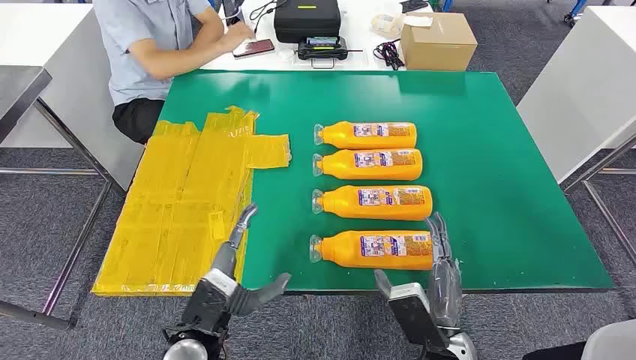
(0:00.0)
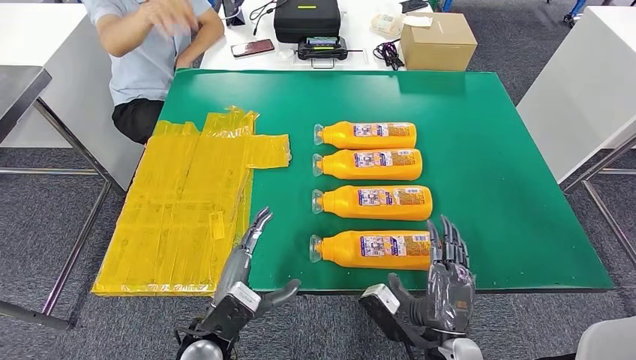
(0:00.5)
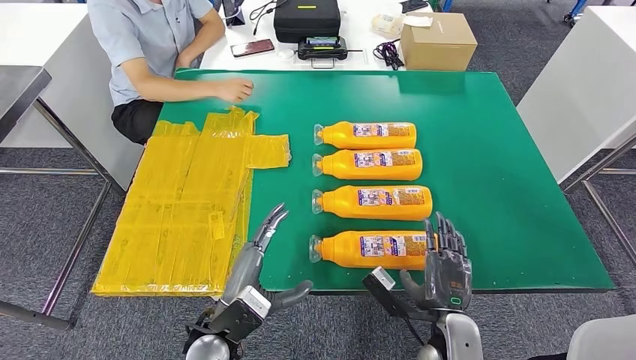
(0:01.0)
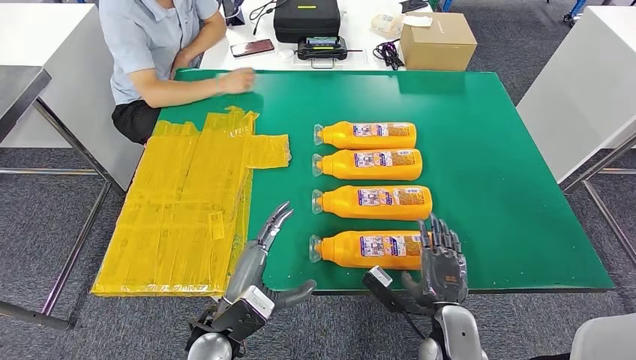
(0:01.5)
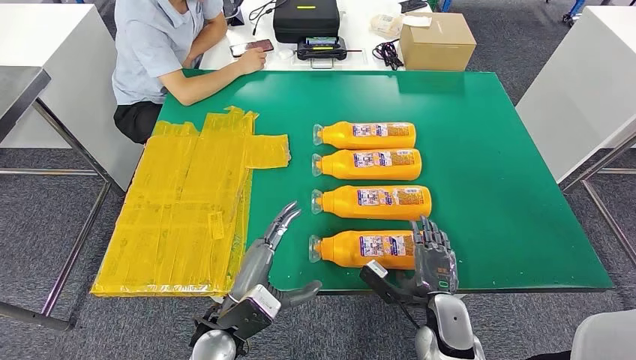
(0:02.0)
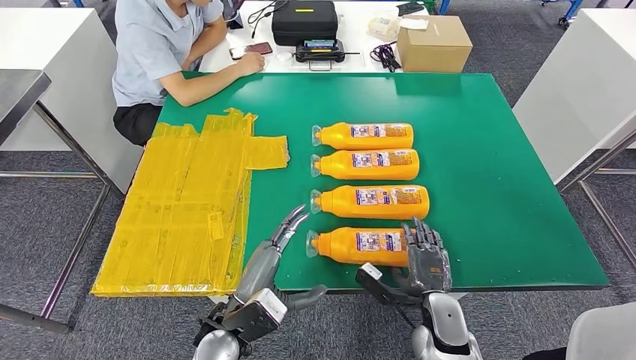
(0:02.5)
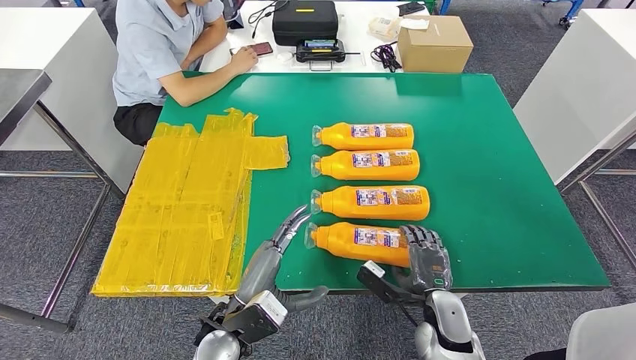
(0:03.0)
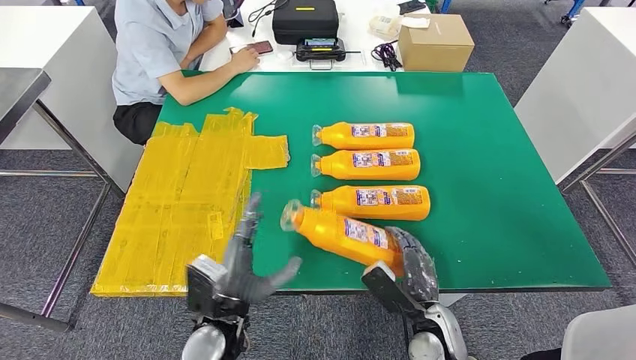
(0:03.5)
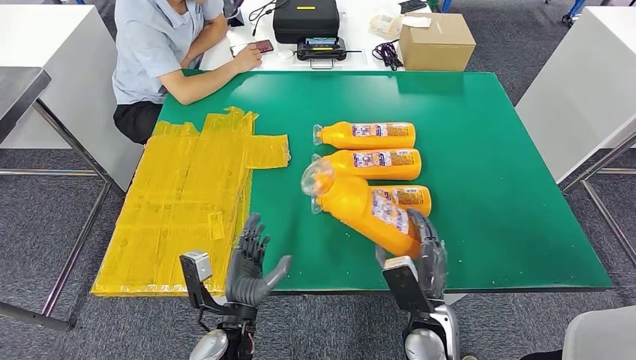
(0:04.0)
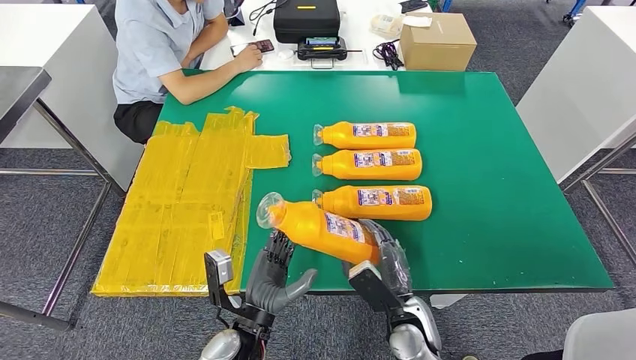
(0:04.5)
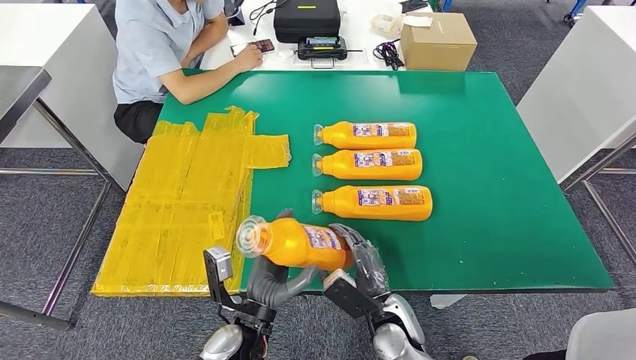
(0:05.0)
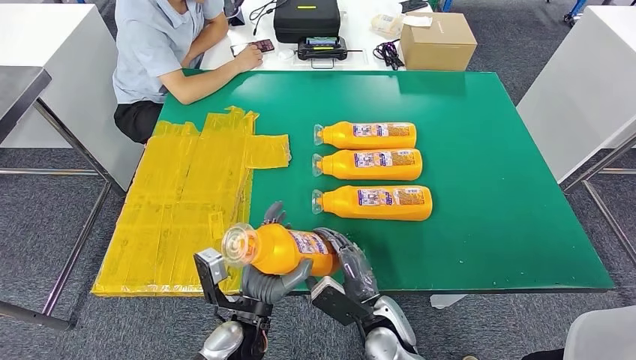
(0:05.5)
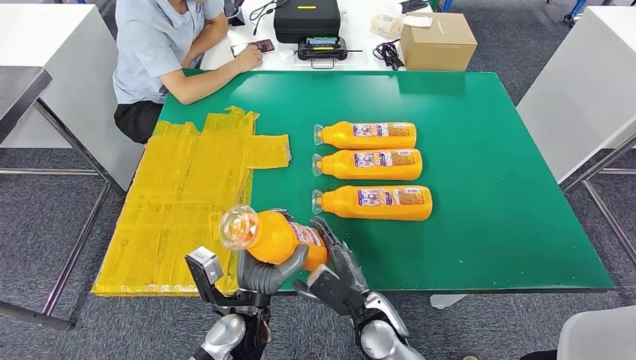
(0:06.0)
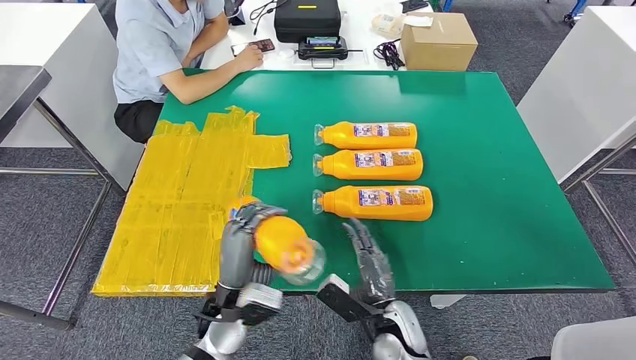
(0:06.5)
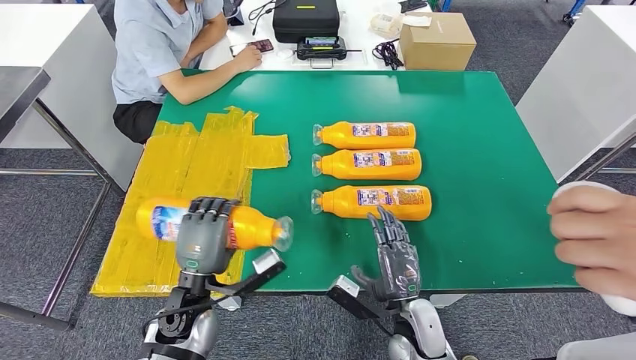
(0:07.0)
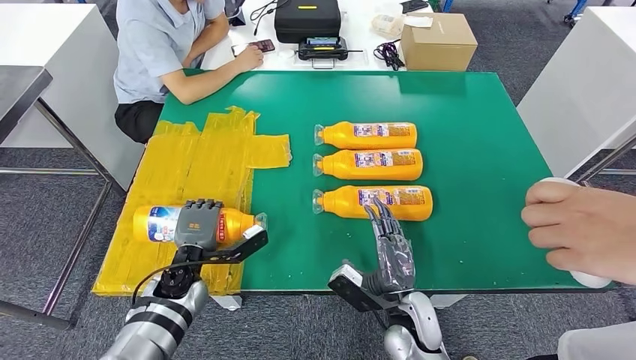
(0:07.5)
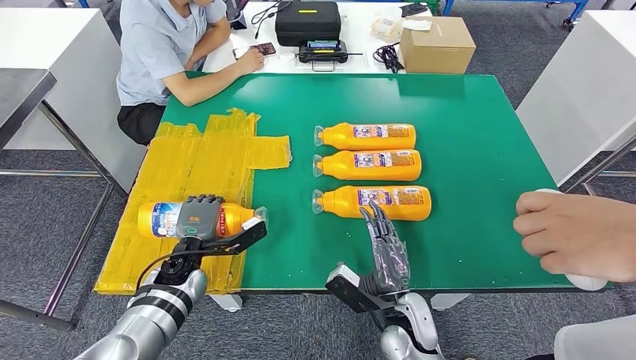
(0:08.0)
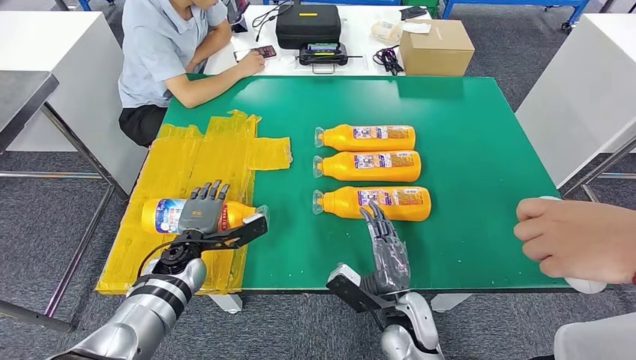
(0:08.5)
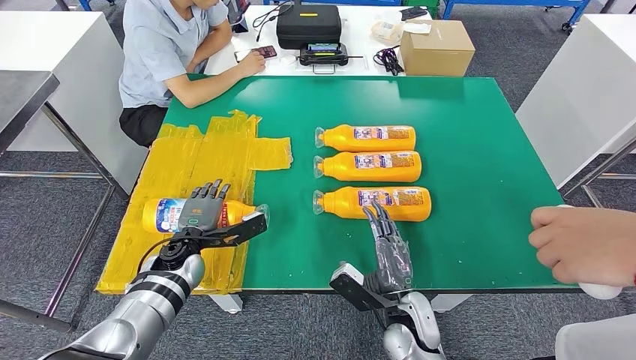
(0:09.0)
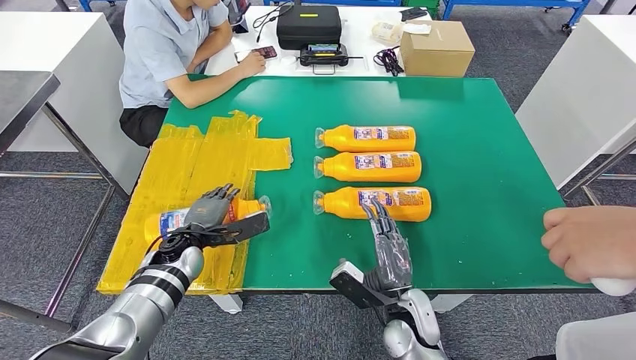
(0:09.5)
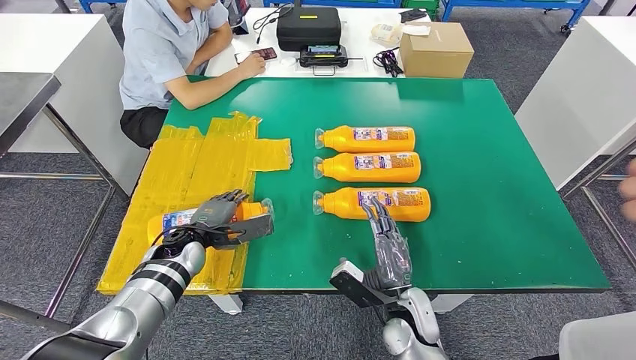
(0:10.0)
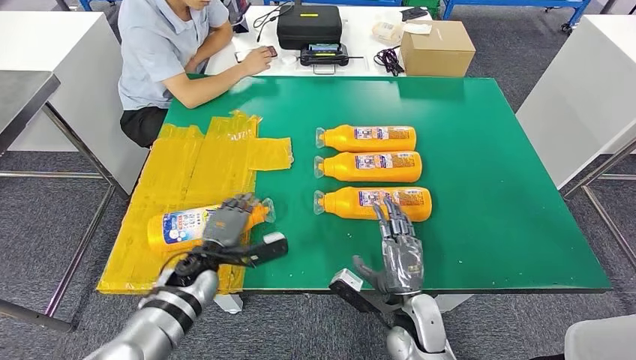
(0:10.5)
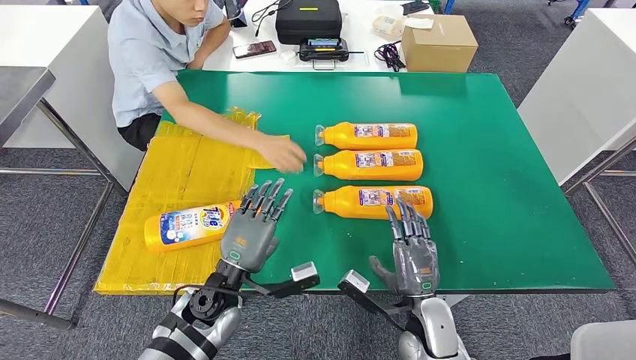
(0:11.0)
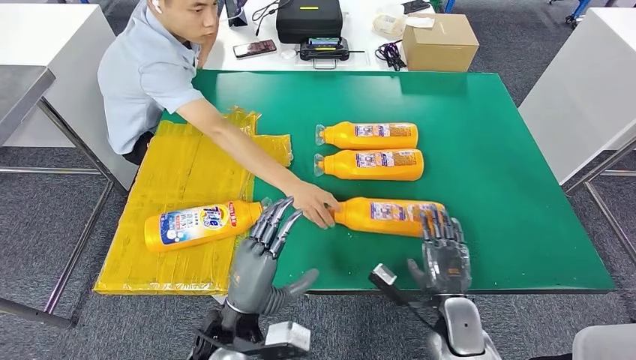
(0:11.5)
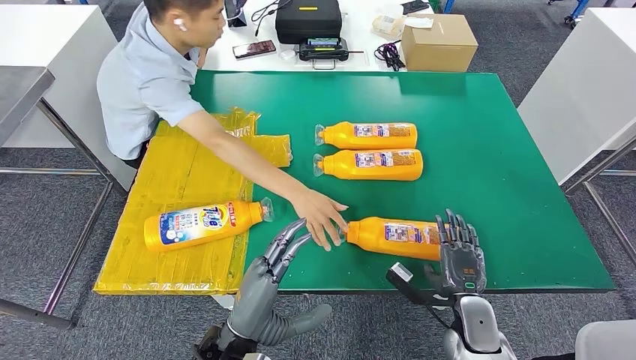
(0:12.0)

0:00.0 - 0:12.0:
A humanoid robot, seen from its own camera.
Step, 0:00.0 - 0:04.5: Take the fast-moving consumer goods bottle from the table.
Step, 0:05.0 - 0:09.5: Flip the fast-moving consumer goods bottle to the front side.
0:02.0 - 0:04.0: The right hand ends up about 5 cm from where it was.
0:04.0 - 0:06.0: The right hand goes approximately 10 cm to the left.

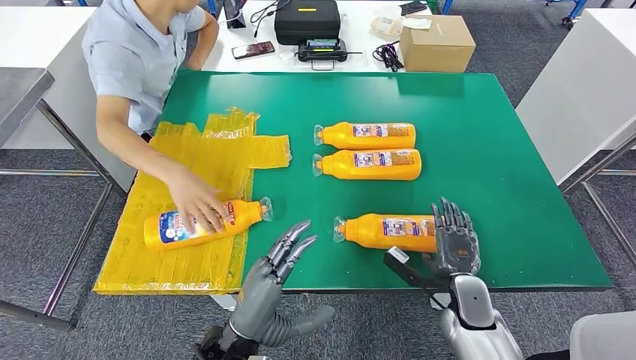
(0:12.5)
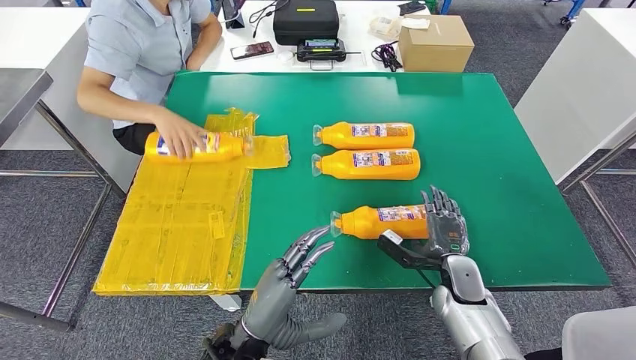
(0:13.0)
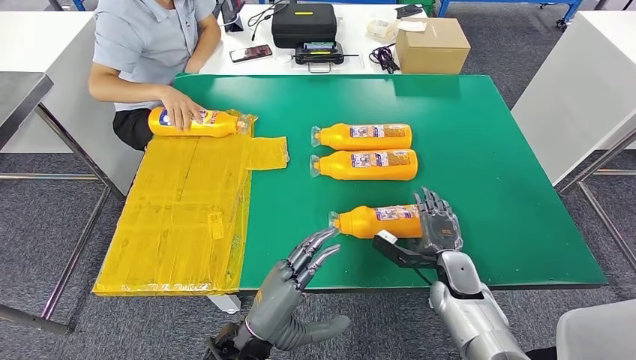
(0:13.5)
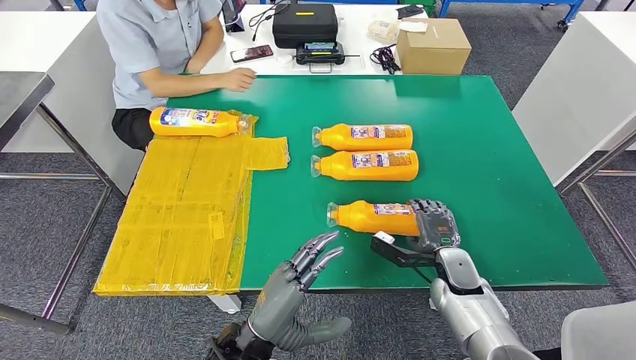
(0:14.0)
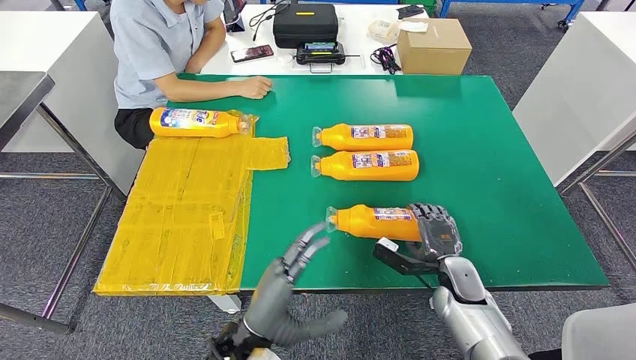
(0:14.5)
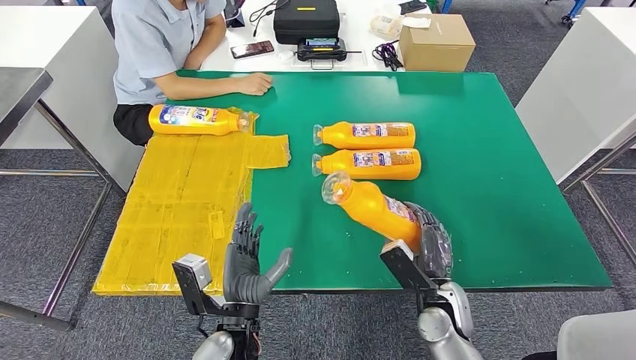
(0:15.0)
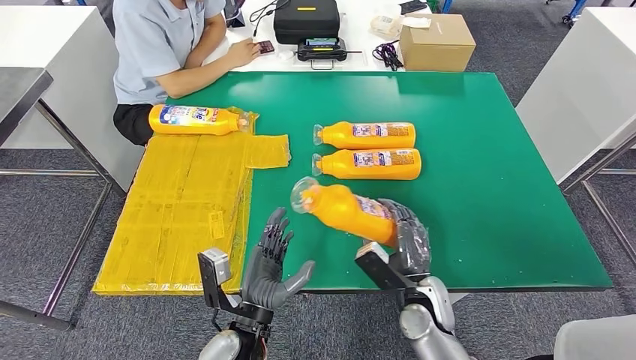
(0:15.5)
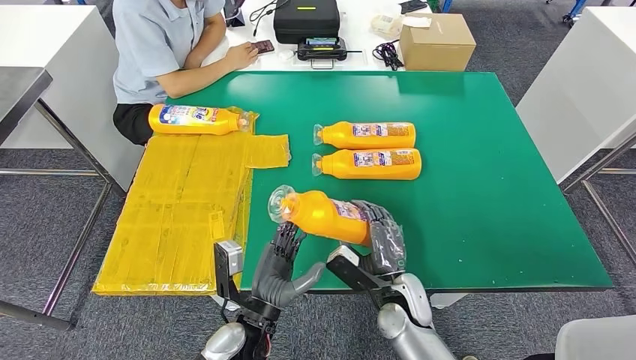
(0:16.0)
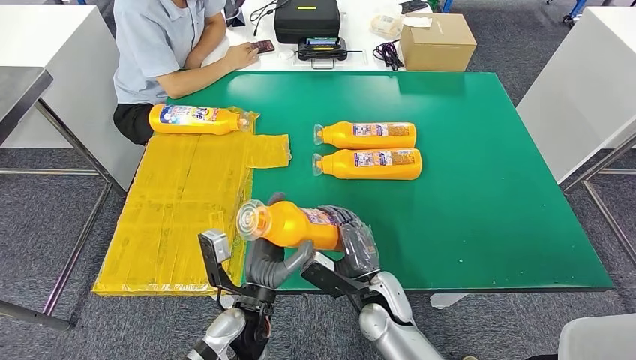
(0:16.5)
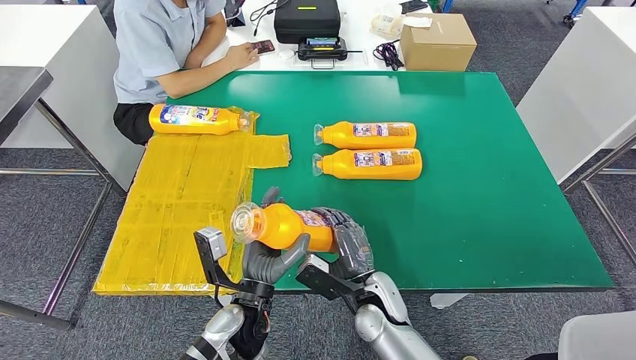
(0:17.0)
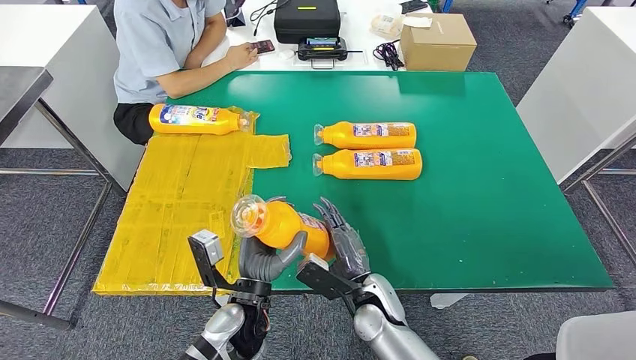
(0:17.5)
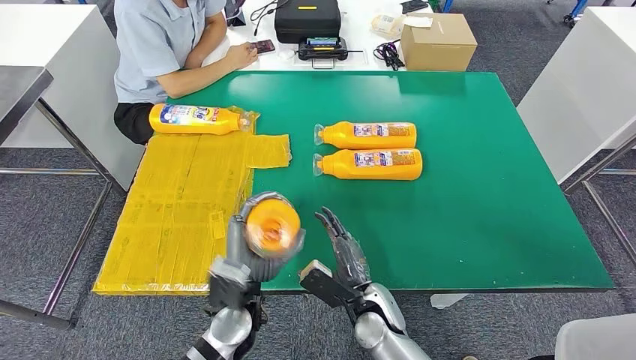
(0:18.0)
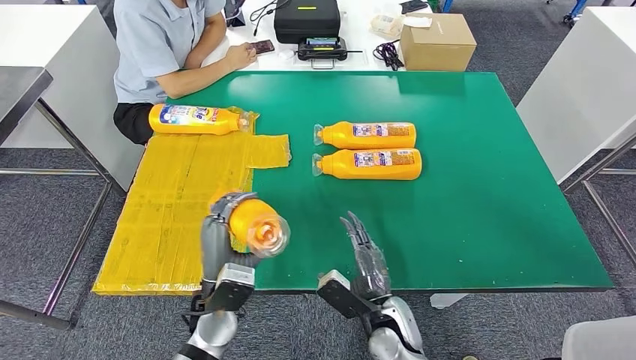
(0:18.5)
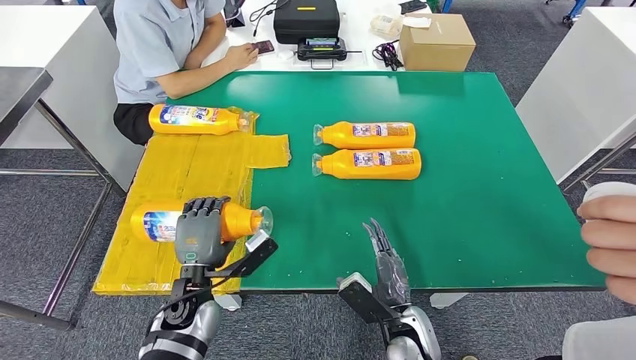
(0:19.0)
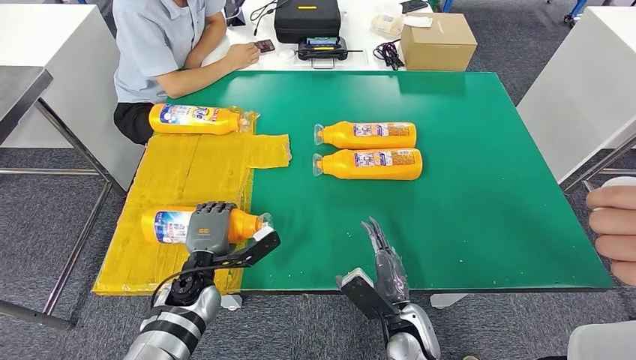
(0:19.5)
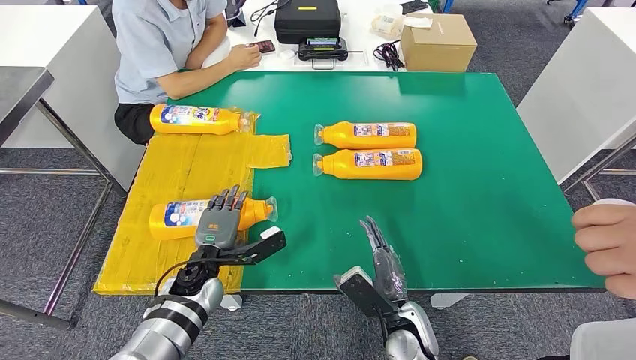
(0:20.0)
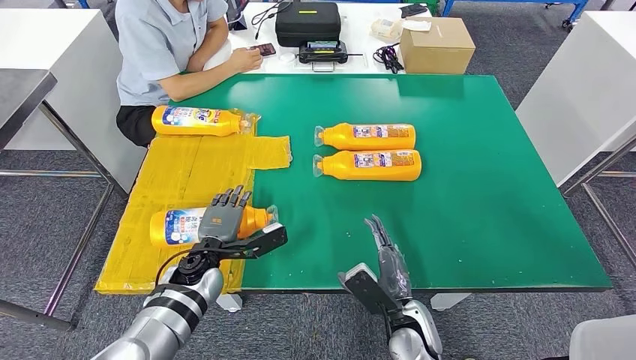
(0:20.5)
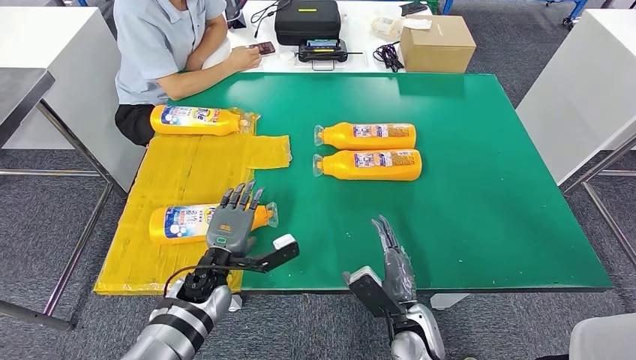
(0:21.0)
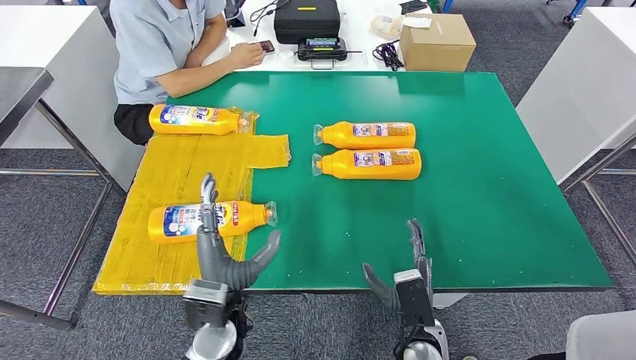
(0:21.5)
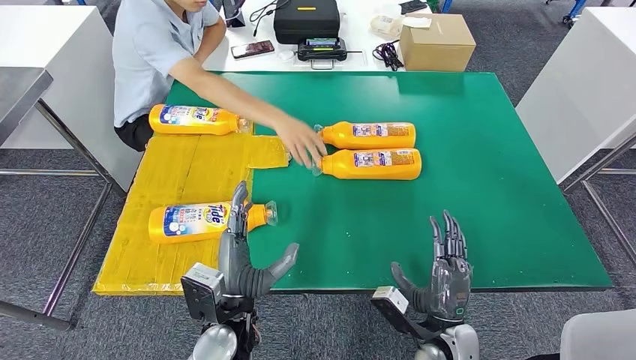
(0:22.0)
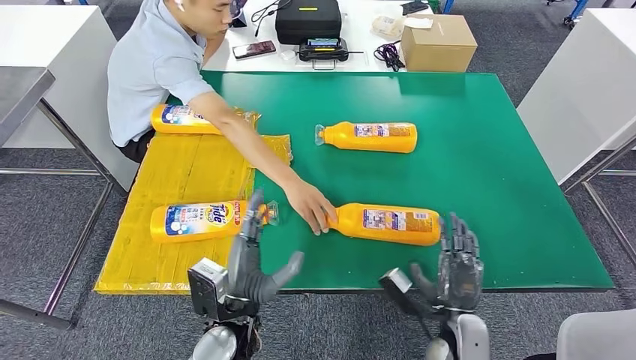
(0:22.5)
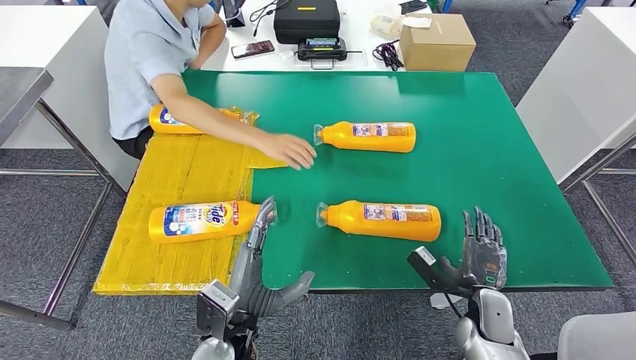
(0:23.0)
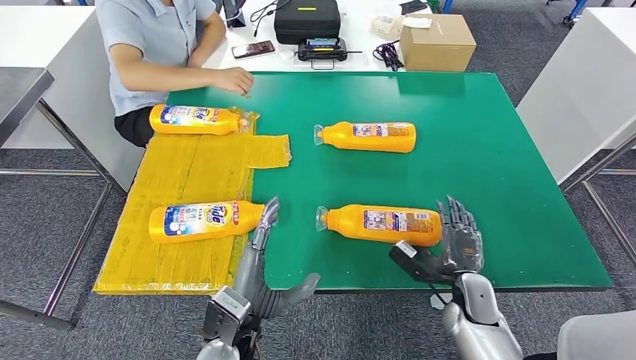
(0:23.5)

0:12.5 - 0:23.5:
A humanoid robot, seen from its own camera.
Step, 0:12.5 - 0:18.0: Pick up the fast-moving consumer goods bottle from the table.
0:18.0 - 0:20.0: The left hand travels to the left and forward by roughly 10 cm. The right hand goes roughly 5 cm to the right.
0:20.0 - 0:21.5: The left hand travels backward, to the right and upward by roughly 15 cm.
0:21.5 - 0:23.5: The right hand heads to the right and forward, covering about 15 cm.
